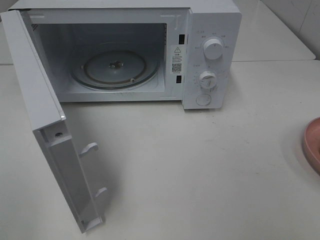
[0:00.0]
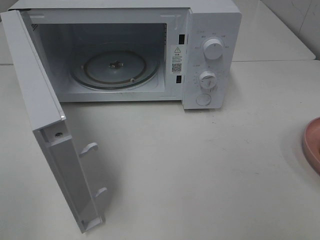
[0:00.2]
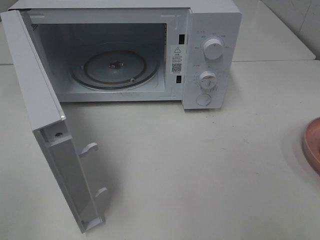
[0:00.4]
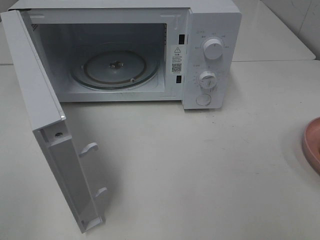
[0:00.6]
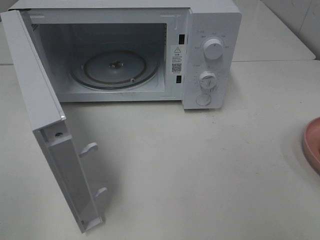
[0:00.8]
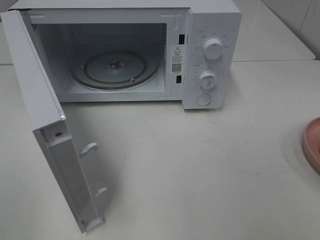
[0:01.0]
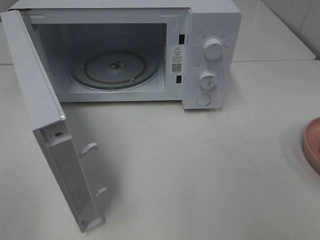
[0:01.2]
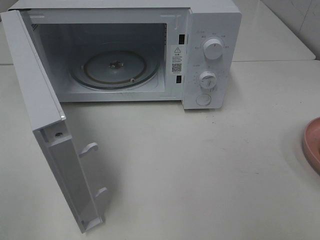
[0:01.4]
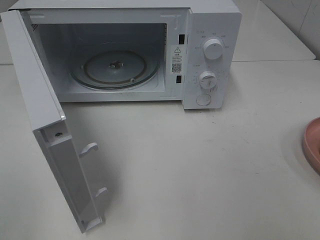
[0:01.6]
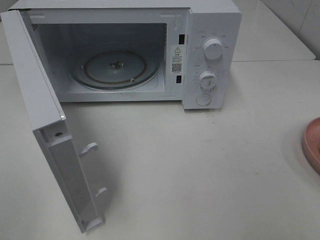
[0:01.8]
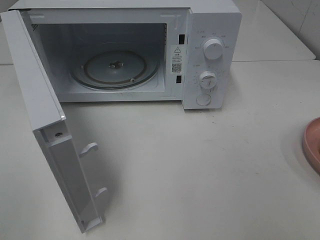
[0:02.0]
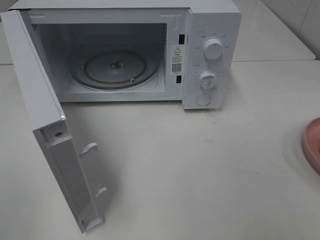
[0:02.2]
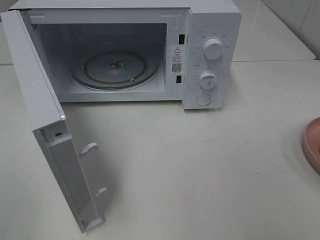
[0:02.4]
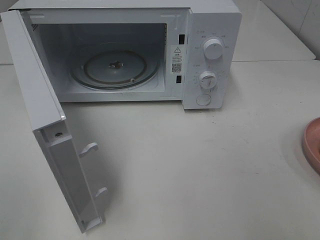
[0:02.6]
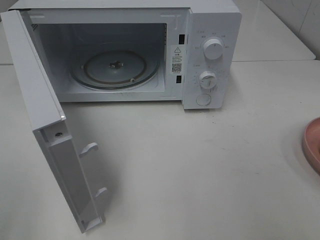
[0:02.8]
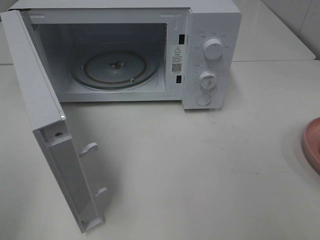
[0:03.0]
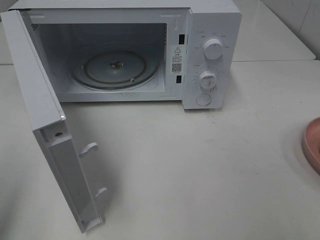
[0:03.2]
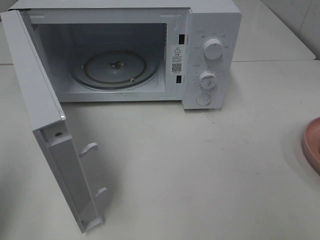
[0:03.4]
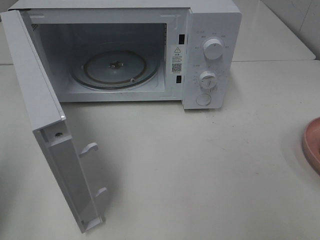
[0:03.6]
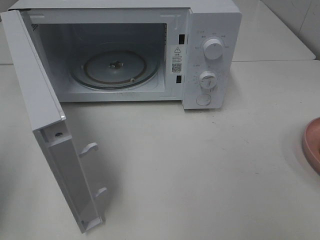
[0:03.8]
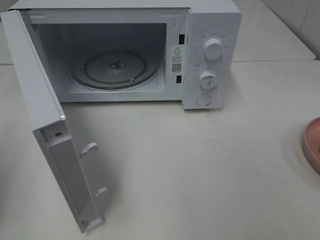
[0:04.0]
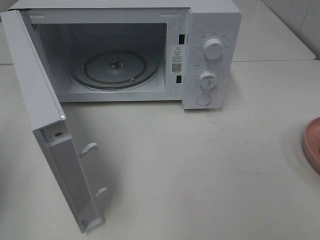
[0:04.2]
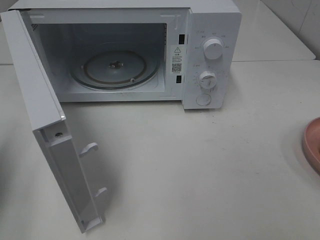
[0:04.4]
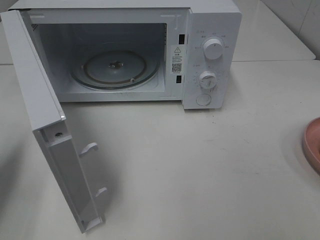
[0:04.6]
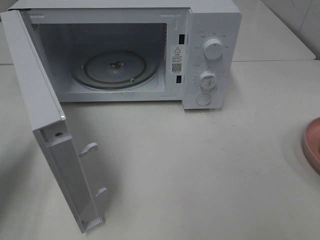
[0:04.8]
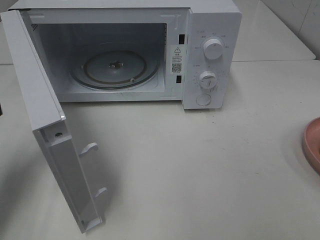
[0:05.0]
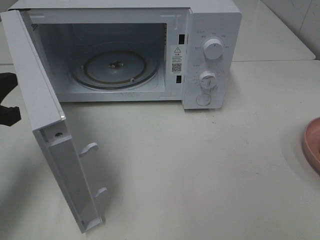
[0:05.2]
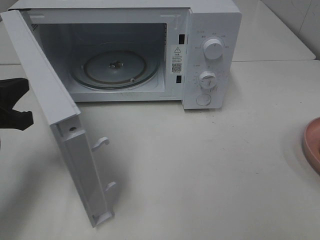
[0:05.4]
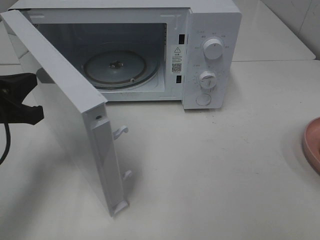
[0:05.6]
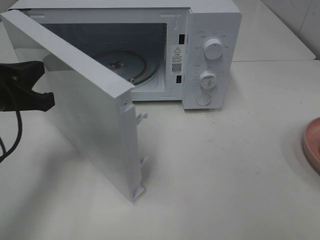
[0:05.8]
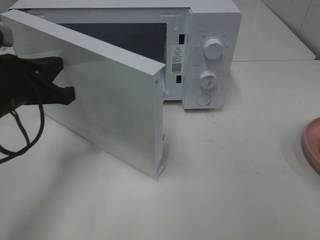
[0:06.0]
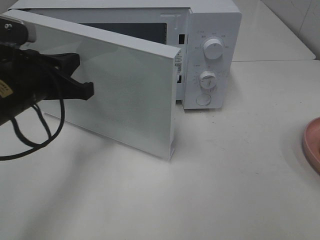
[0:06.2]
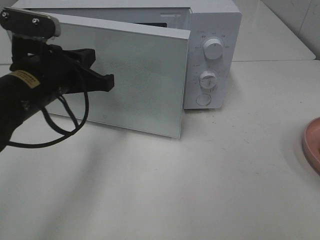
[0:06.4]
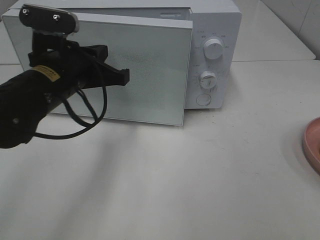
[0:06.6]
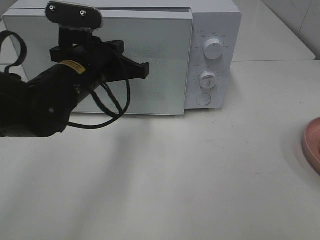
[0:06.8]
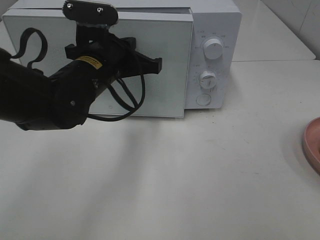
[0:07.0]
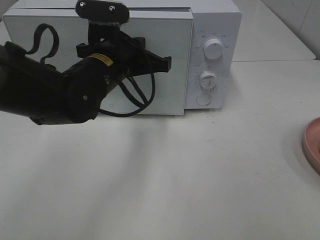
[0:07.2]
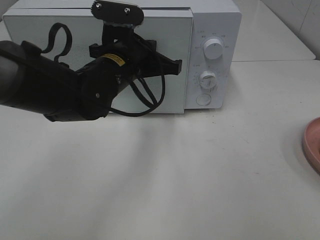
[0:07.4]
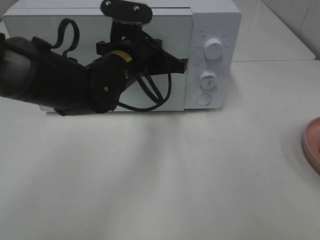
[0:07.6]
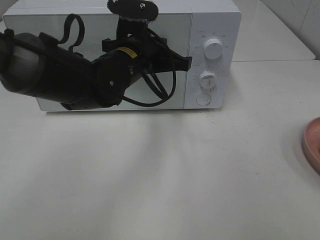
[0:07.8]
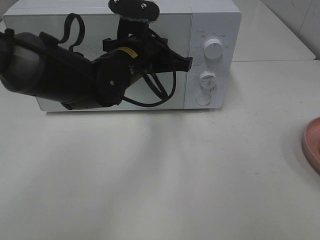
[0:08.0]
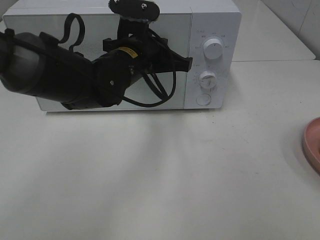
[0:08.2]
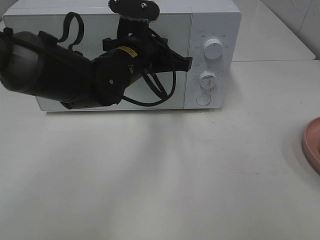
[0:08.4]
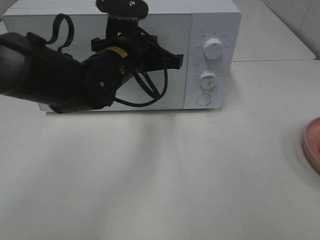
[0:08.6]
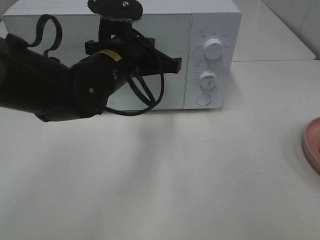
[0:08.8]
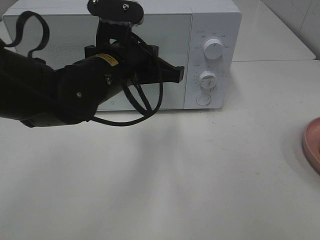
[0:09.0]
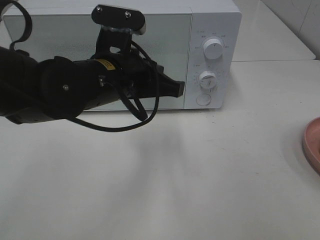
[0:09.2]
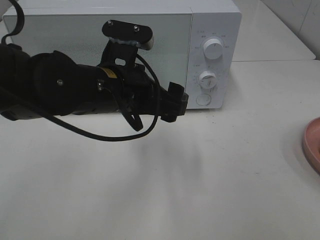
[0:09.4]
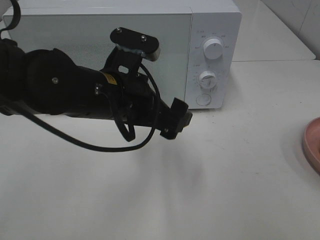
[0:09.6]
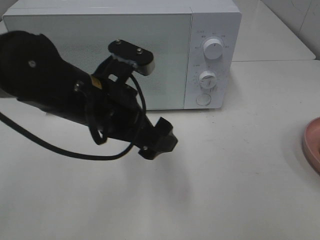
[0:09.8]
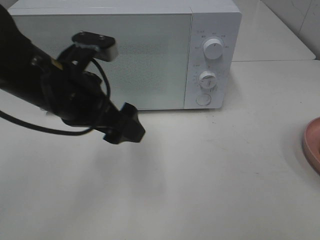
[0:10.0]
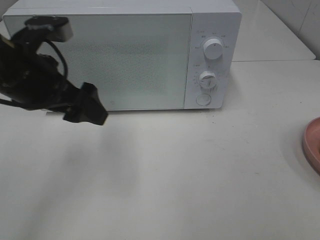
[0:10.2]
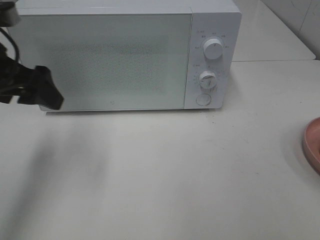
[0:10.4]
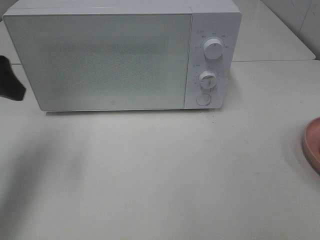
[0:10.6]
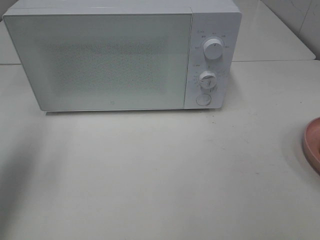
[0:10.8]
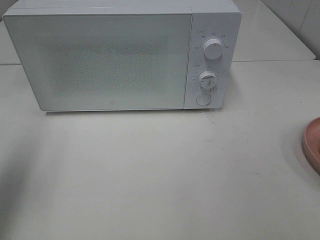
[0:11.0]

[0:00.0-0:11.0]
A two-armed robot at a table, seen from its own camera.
Task of the whole recording: Heat Sandwich.
Step, 0:00.0 to 0:08.0: Left hand: close the microwave door.
0:03.2 to 0:04.8: The left gripper goes roughly 20 cm forward and downward.
0:04.8 to 0:06.2: The left gripper heads to the right, covering some 15 cm.
0:06.2 to 0:07.8: The left gripper shifts some 15 cm to the right and forward.
0:07.8 to 0:09.4: The left gripper moves backward, roughly 10 cm, and opens its fingers.
0:09.4 to 0:11.0: The left gripper heads to the left, covering some 25 cm.

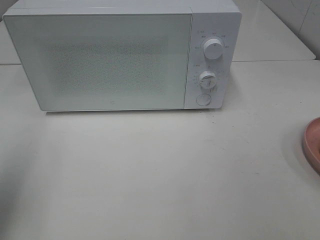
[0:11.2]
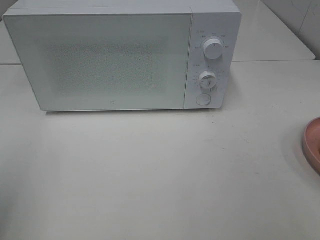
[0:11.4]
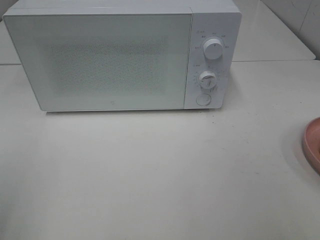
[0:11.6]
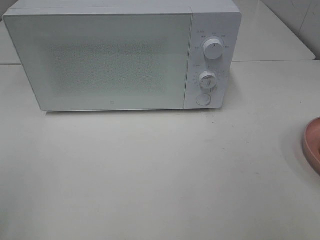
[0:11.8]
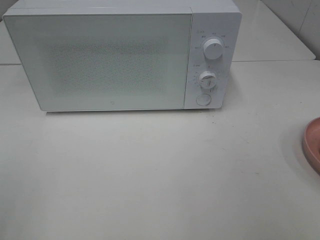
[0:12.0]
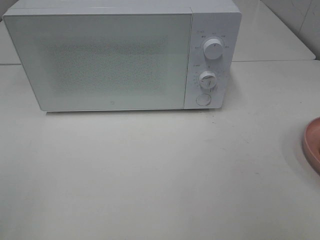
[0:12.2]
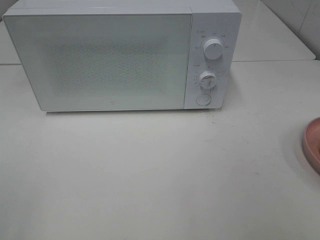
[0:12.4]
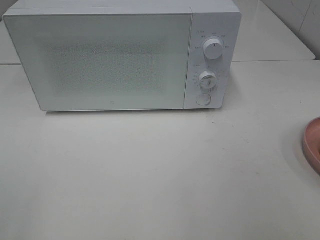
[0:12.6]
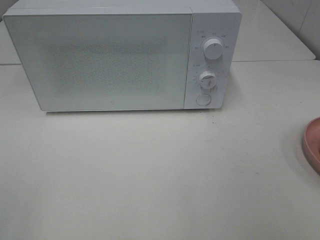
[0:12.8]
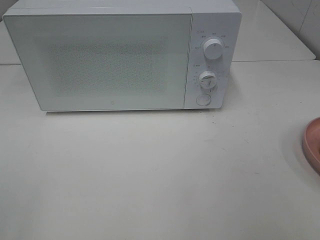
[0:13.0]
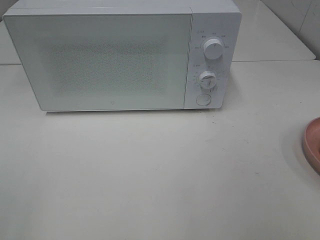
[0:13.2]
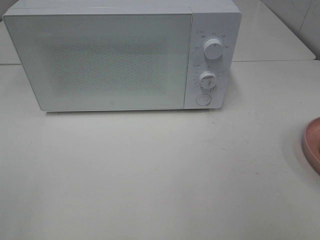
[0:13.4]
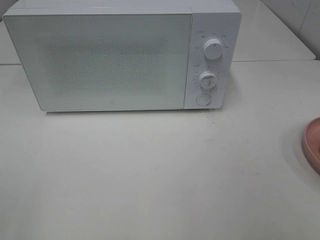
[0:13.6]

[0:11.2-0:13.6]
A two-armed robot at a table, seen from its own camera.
Task of the whole recording: Heat Sandwich.
0:11.2 to 0:12.4: The left gripper moves backward, about 15 cm.
0:12.4 to 0:13.6: Neither gripper changes place.
